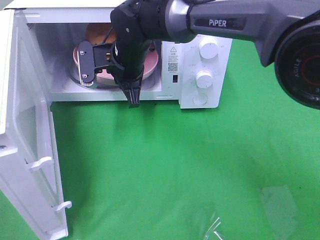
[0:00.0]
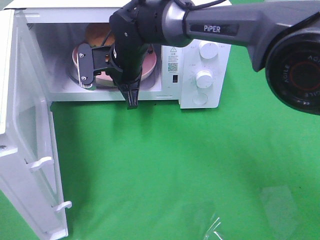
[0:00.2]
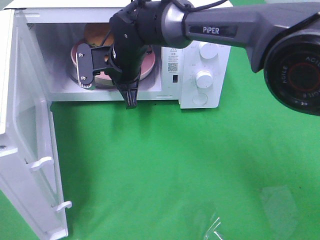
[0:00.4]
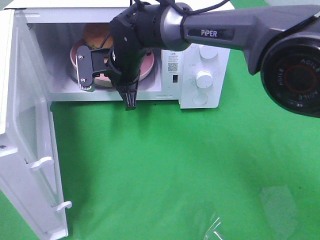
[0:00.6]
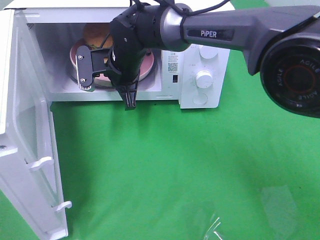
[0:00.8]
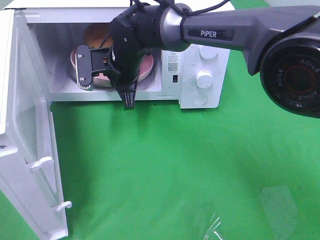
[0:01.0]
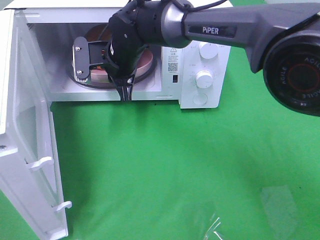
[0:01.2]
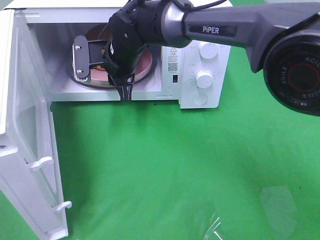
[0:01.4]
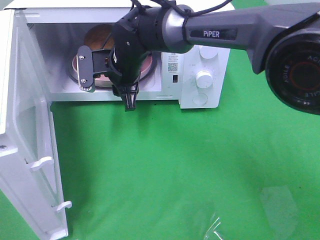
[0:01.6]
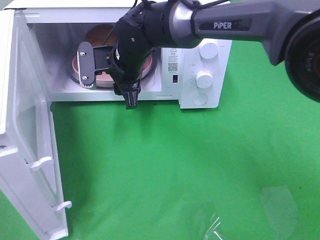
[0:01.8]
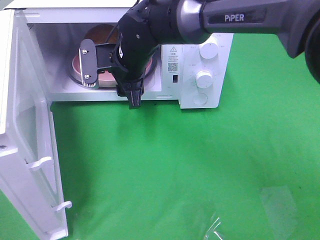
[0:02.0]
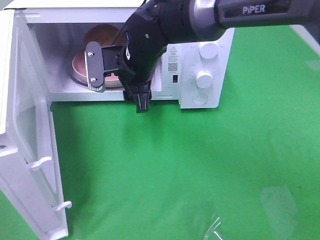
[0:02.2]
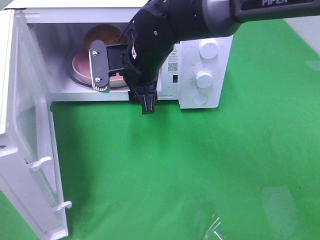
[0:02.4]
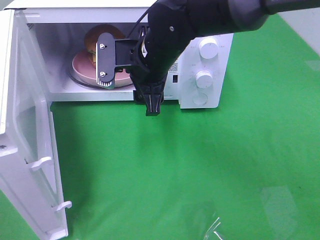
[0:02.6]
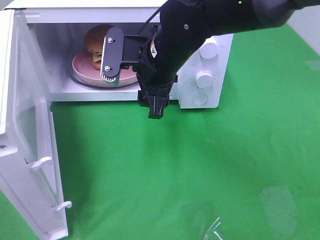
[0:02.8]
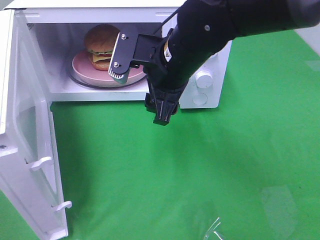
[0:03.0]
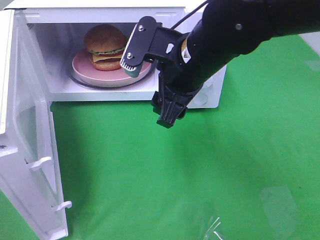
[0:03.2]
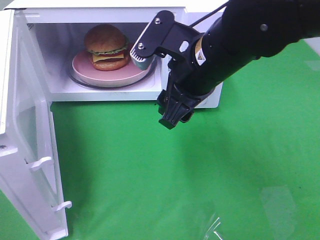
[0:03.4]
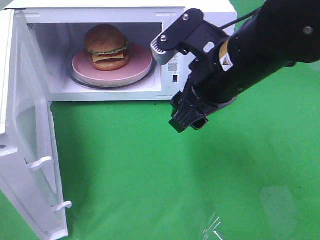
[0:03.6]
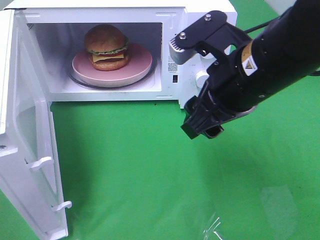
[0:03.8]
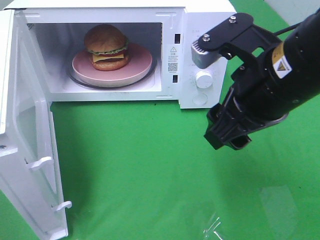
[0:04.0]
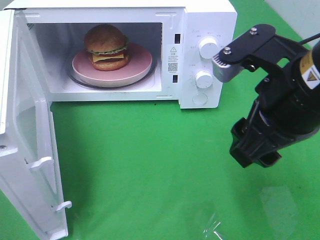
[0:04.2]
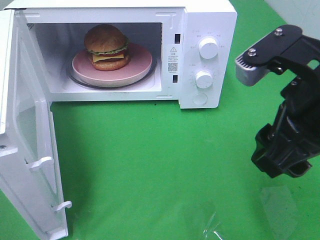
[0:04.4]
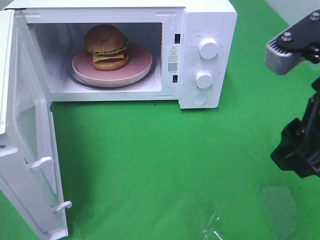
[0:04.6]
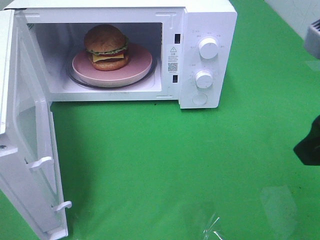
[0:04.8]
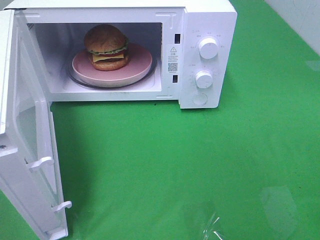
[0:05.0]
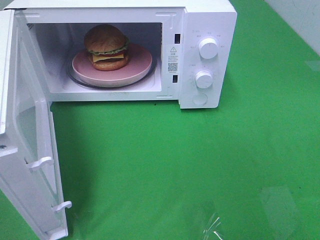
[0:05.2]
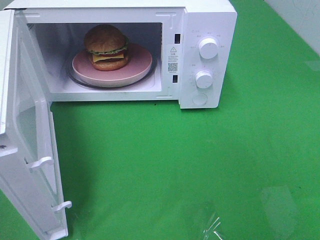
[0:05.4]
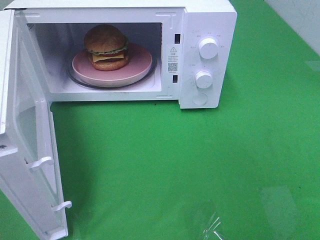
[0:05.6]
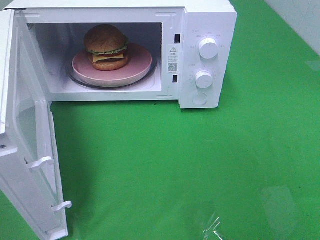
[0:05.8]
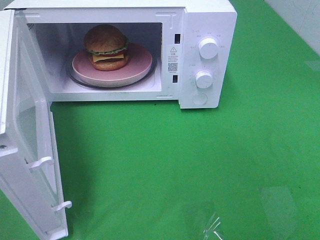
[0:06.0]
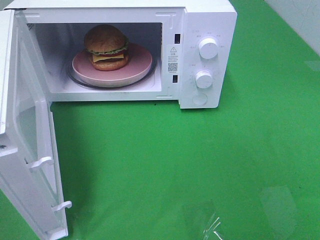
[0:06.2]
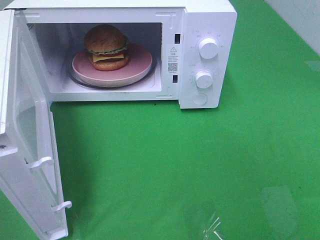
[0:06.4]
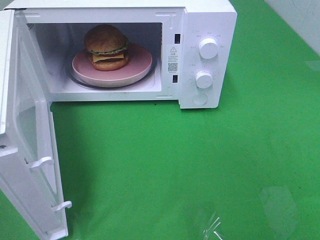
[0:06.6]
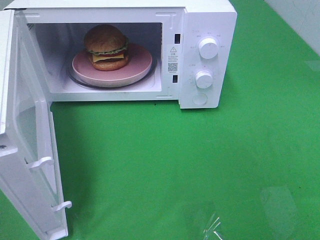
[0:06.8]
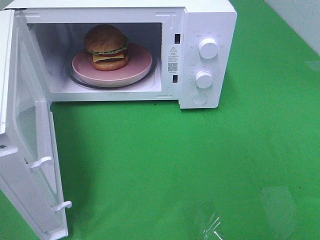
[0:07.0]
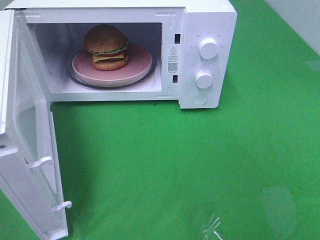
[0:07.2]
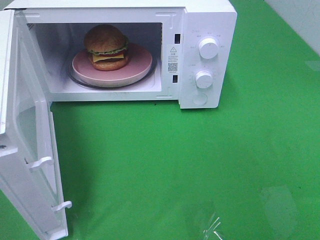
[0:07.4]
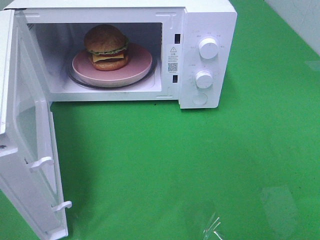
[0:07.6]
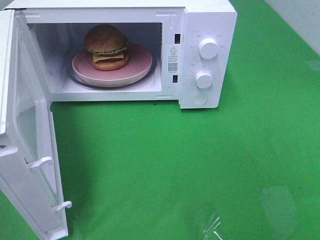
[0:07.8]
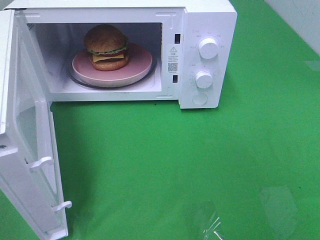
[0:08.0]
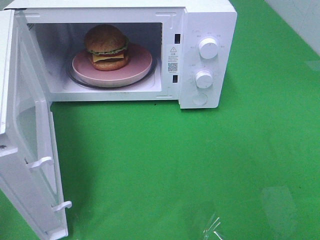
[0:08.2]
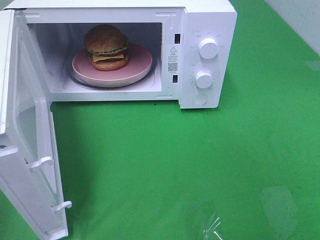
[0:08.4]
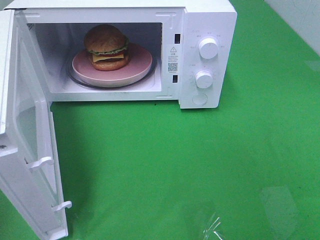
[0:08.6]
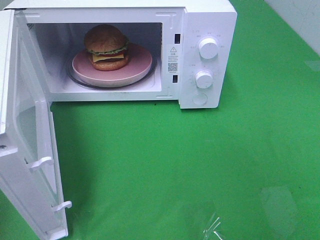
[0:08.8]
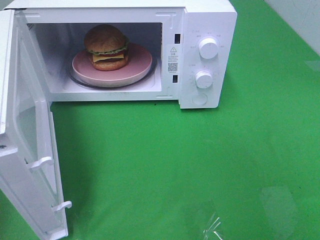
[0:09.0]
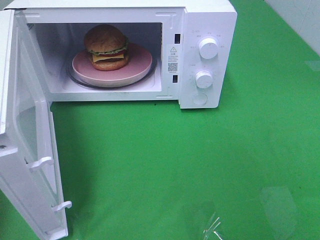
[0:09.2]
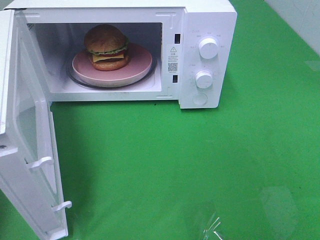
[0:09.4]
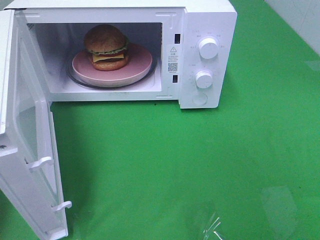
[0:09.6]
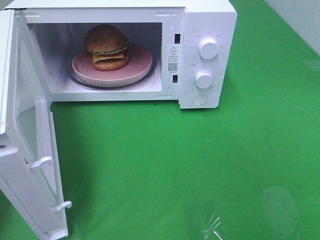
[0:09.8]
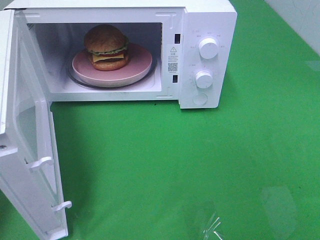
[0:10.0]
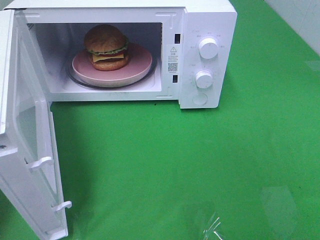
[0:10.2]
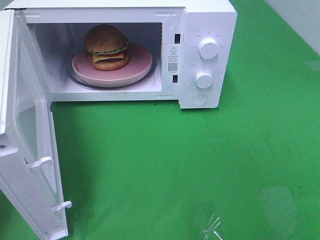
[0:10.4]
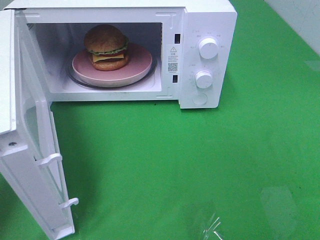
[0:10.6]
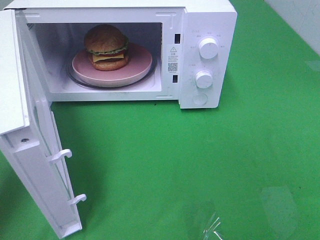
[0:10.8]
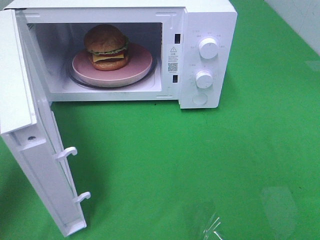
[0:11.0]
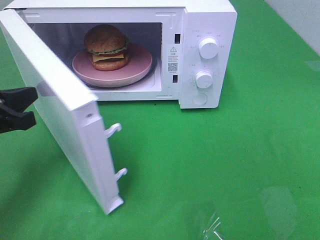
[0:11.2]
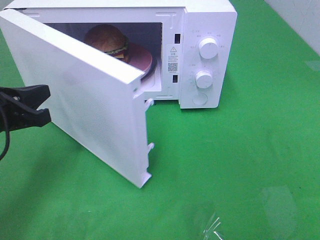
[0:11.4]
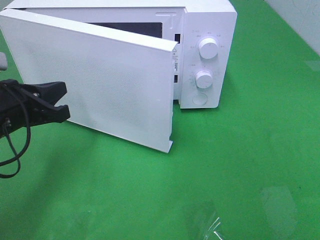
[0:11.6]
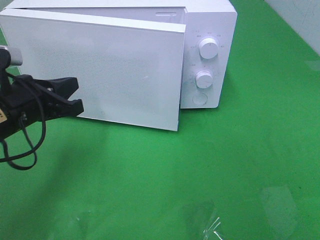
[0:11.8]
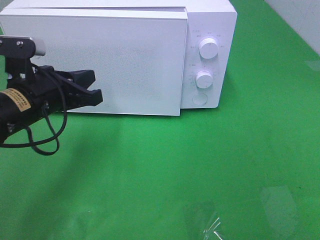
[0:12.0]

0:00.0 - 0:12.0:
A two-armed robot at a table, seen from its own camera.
Task of the whole recording: Heat the burger.
0:00.0 - 0:01.6: The right gripper opens.
0:01.6 - 0:03.0: The right gripper heads backward, to the right and upward, covering about 15 cm.
0:03.0 - 0:04.4: The right gripper travels backward, to the right and upward by approximately 20 cm.
0:04.4 - 0:06.0: The right gripper goes some 20 cm backward and to the right.
0:06.0 - 0:07.6: Both grippers stay about where they are.
0:10.4 - 0:12.0: The left gripper is displaced to the right and forward by approximately 15 cm.

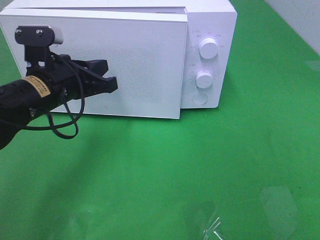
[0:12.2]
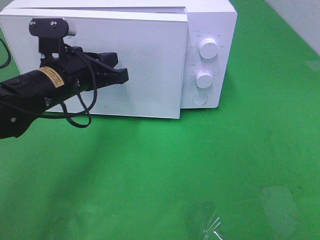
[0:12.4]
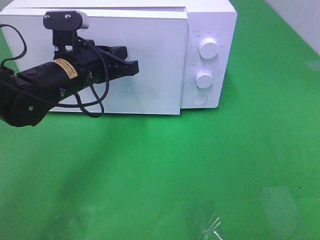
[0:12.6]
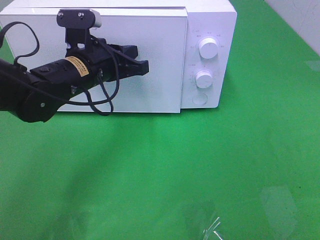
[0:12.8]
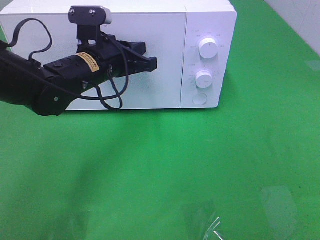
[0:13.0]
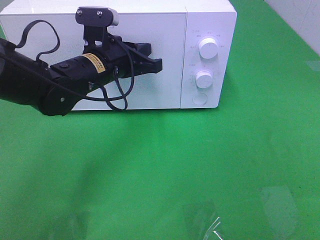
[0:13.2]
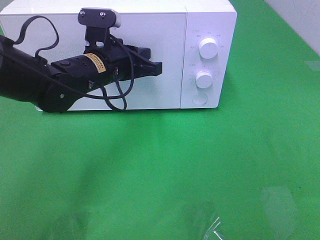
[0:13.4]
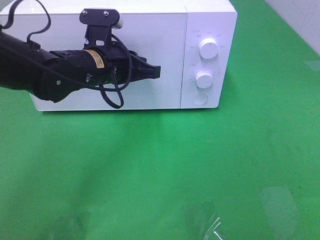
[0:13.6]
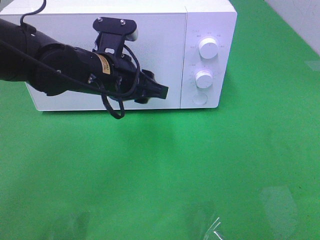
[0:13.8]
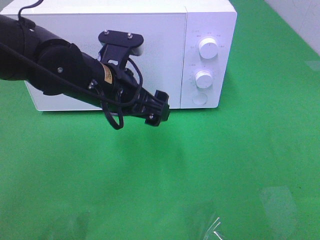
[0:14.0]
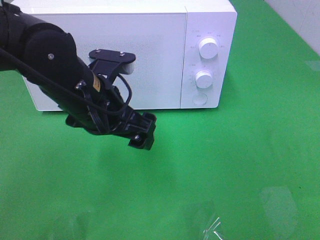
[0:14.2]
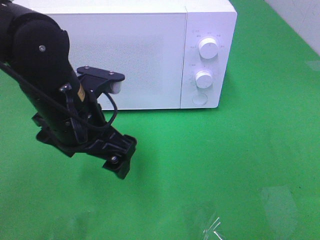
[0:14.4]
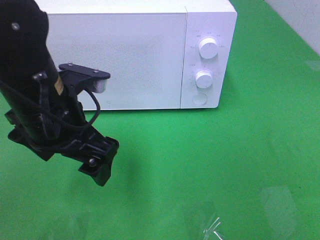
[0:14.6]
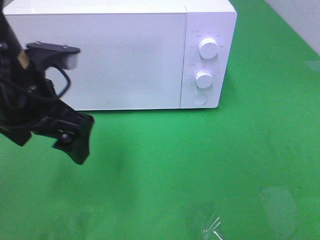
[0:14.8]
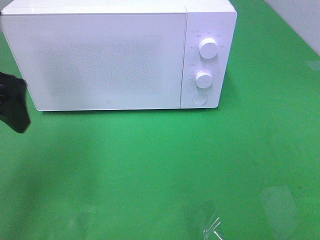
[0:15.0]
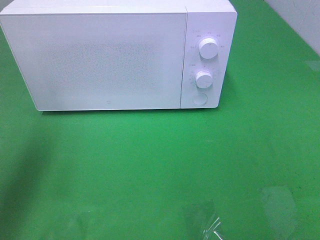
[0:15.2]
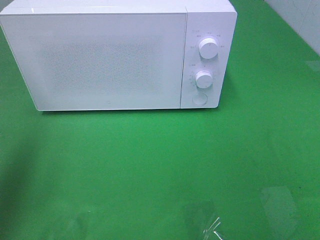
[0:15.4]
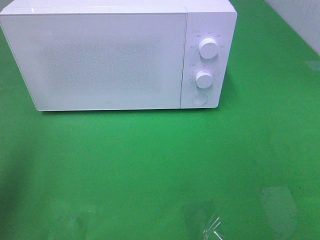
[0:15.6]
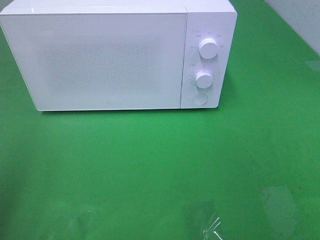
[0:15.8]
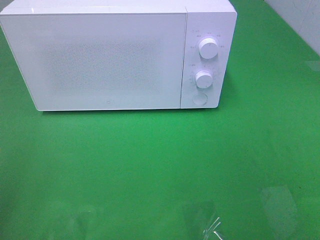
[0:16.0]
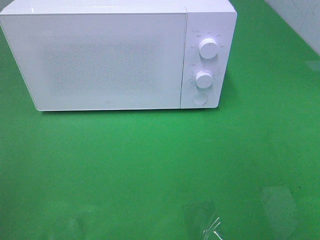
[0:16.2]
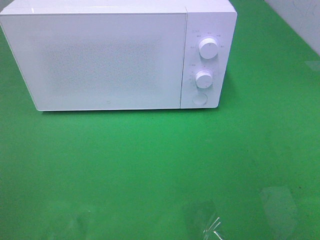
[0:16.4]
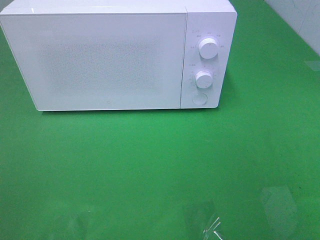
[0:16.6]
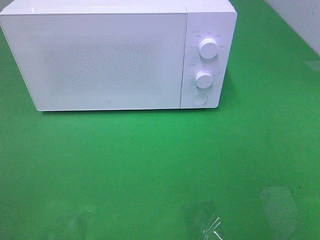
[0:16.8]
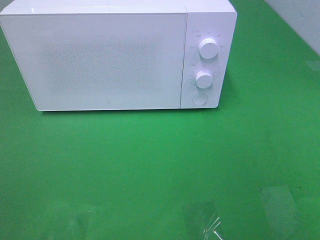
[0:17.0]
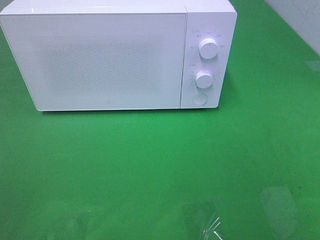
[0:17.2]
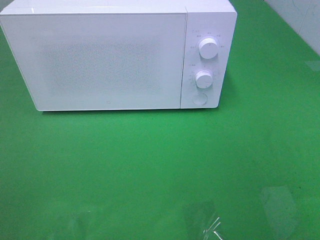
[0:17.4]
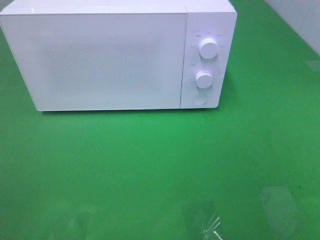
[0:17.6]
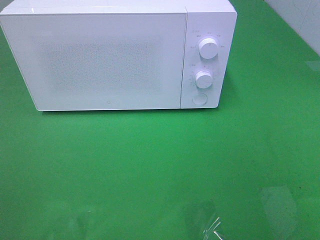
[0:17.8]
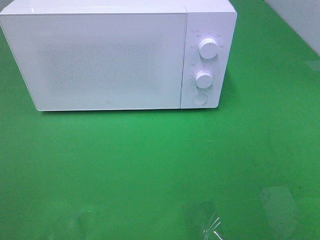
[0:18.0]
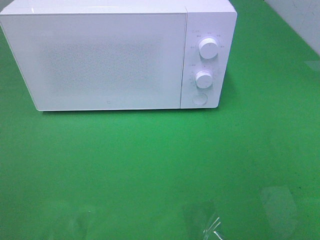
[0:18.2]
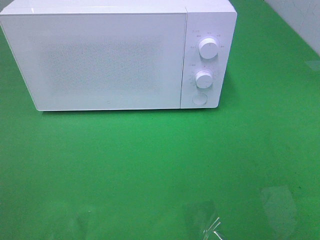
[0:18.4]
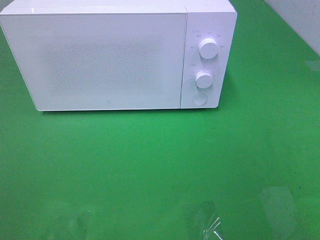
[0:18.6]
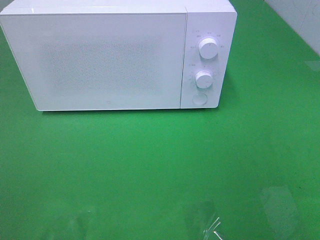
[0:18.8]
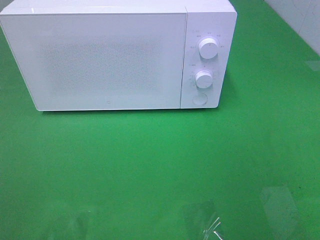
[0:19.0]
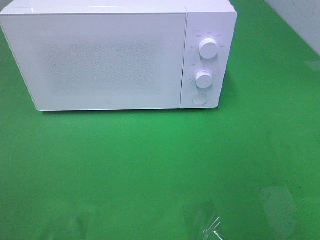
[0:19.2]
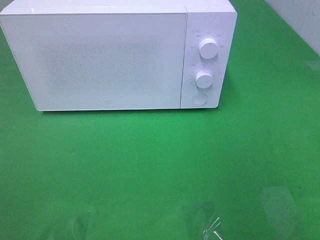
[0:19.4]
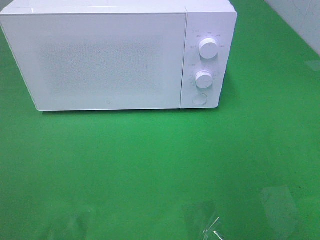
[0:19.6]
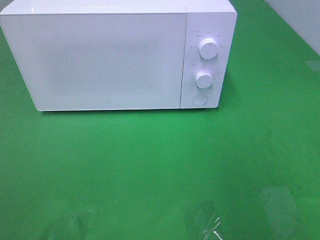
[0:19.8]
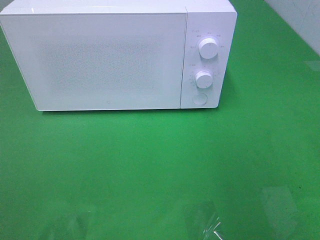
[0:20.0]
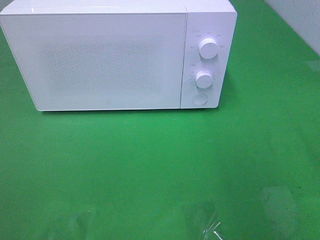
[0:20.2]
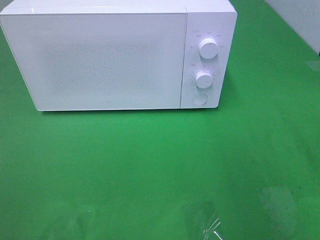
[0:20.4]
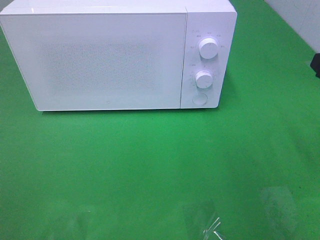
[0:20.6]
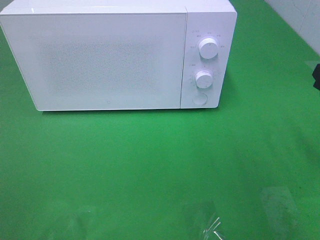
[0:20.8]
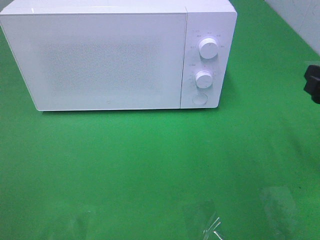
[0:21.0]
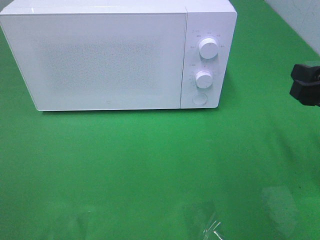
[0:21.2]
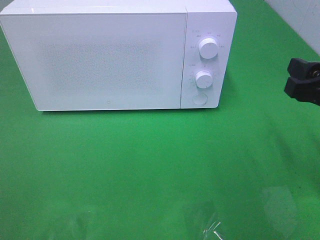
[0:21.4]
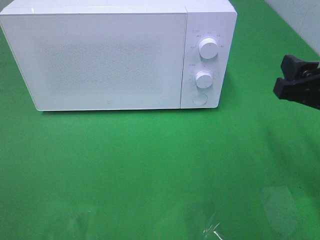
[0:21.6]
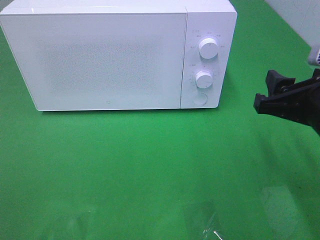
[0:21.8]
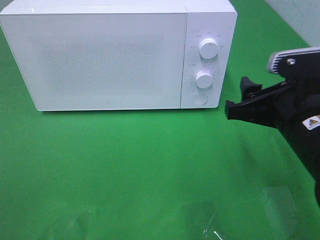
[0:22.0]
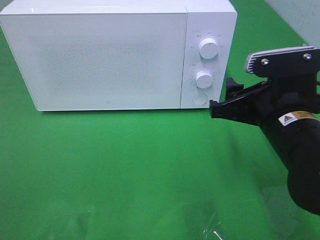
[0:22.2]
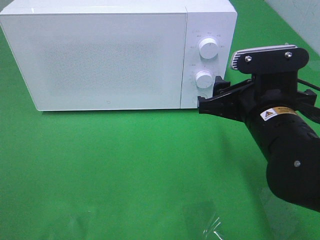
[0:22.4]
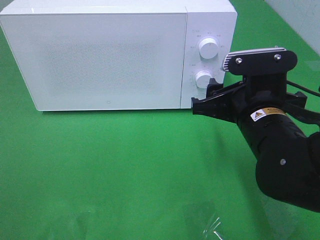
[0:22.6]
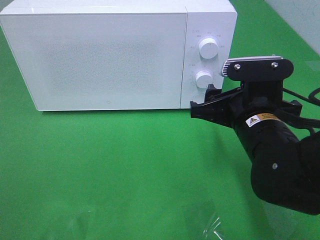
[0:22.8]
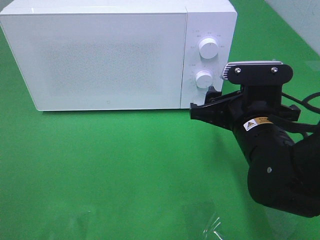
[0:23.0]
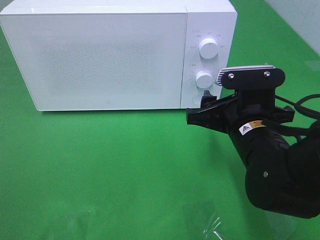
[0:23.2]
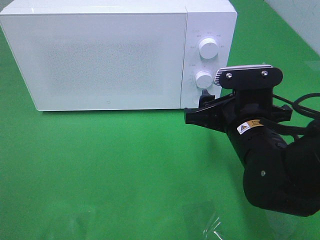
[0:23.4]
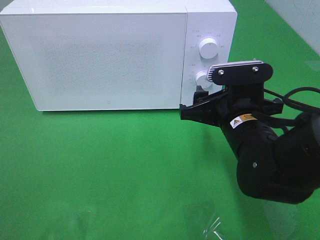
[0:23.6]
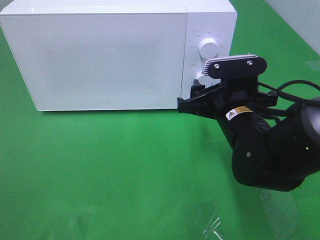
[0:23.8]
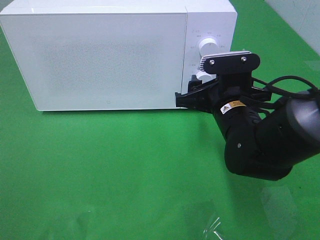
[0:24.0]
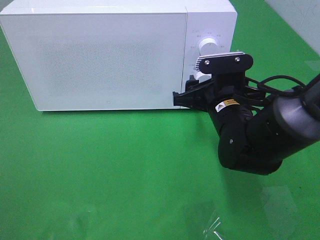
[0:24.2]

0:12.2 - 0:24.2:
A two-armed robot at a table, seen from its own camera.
Task of the whole recording: Heat the burger.
0:12.2 - 0:13.8: The left gripper shifts approximately 10 cm to the right, and opens up.
0:13.8 - 0:15.2: The left gripper goes roughly 25 cm to the left and upward, and opens.
0:15.2 - 0:16.6: The left gripper goes roughly 25 cm backward.
0:16.6 - 0:18.2: The two grippers keep their place.
0:19.8 - 0:21.2: The right gripper travels downward by about 10 cm.
0:21.2 - 0:22.6: The right gripper travels to the left by roughly 10 cm.
0:22.6 - 0:24.2: The right gripper moves forward, some 5 cm.
